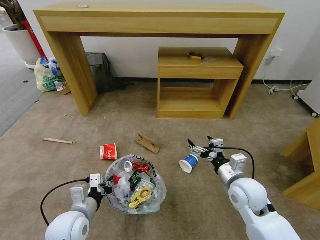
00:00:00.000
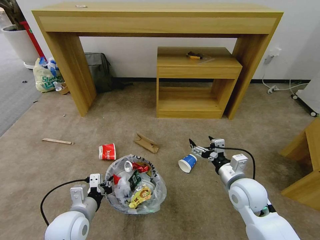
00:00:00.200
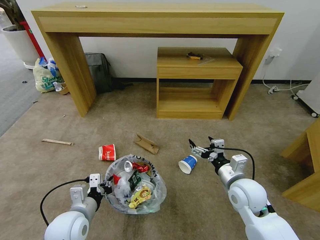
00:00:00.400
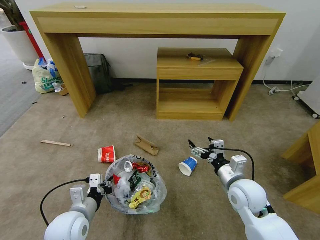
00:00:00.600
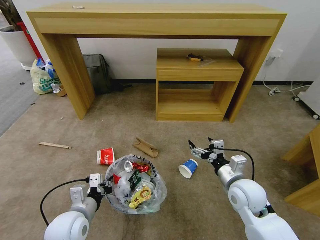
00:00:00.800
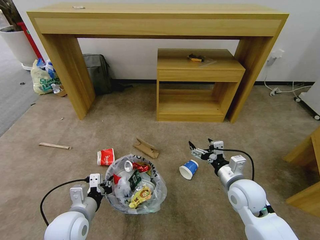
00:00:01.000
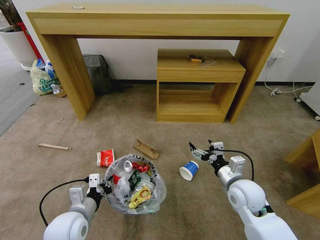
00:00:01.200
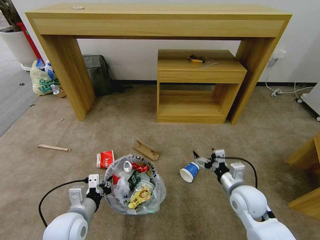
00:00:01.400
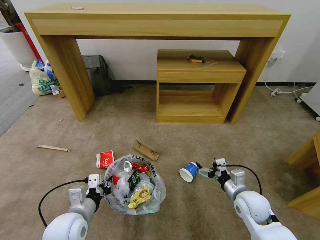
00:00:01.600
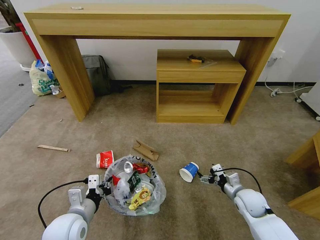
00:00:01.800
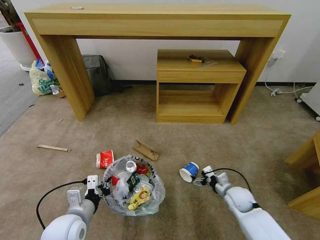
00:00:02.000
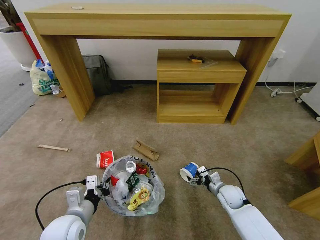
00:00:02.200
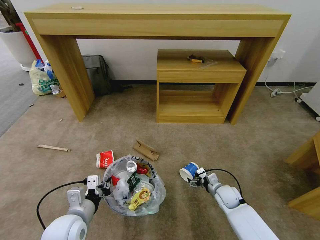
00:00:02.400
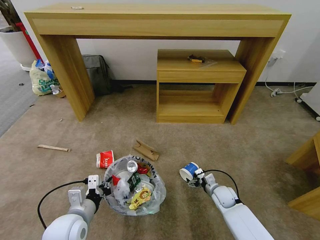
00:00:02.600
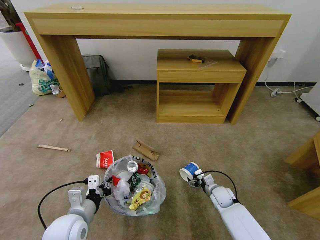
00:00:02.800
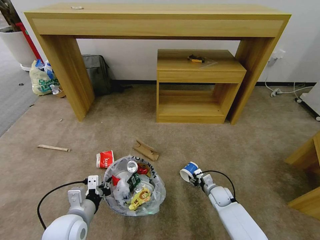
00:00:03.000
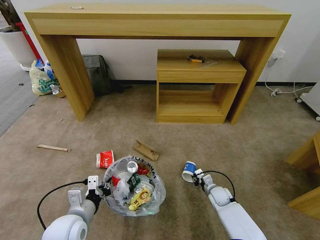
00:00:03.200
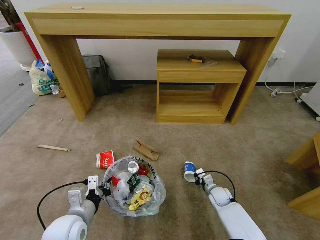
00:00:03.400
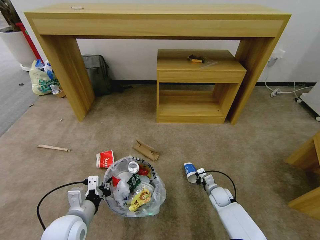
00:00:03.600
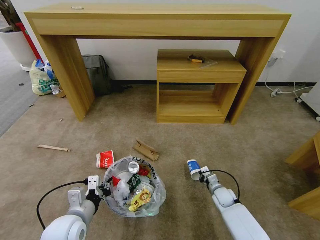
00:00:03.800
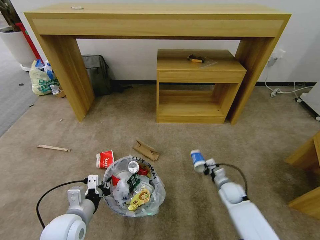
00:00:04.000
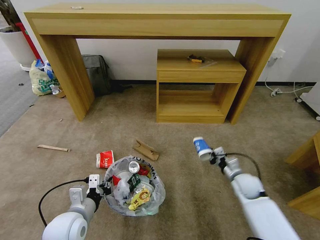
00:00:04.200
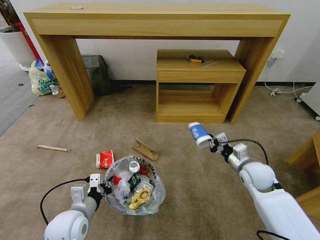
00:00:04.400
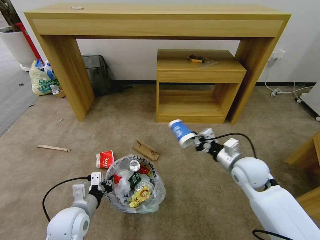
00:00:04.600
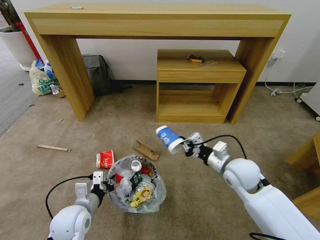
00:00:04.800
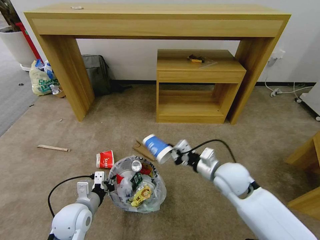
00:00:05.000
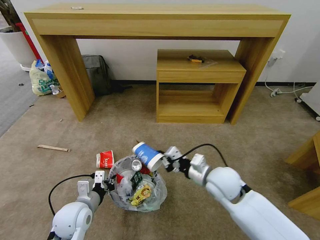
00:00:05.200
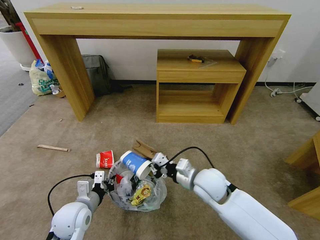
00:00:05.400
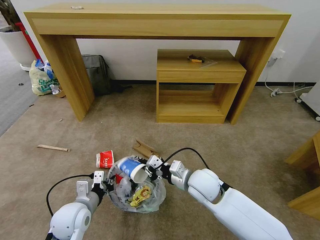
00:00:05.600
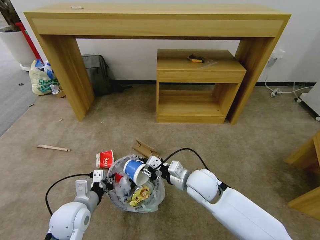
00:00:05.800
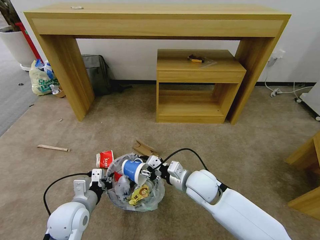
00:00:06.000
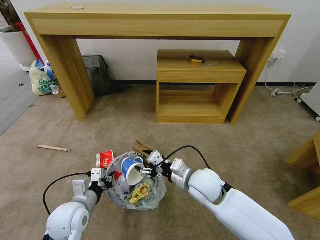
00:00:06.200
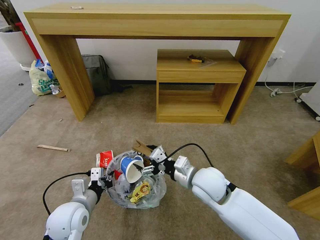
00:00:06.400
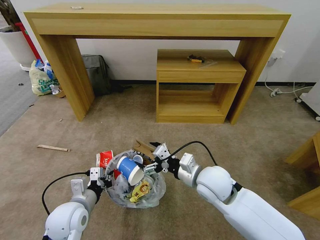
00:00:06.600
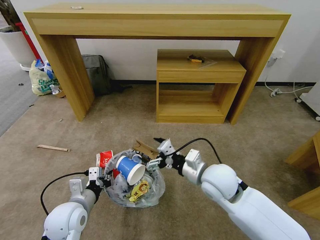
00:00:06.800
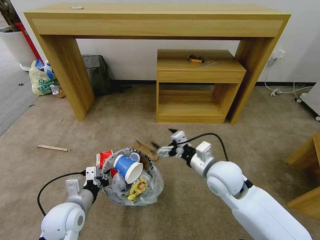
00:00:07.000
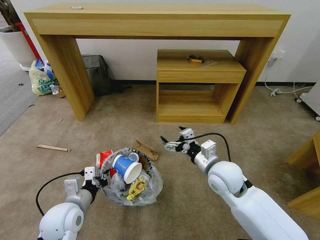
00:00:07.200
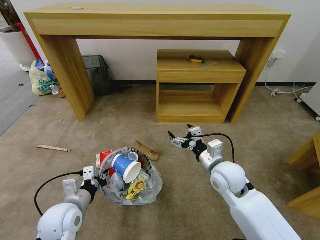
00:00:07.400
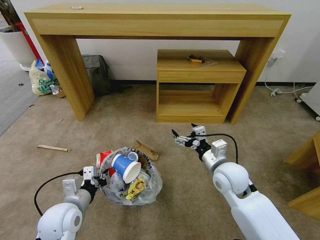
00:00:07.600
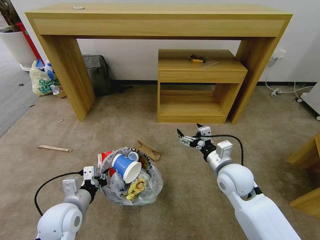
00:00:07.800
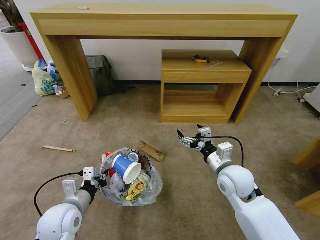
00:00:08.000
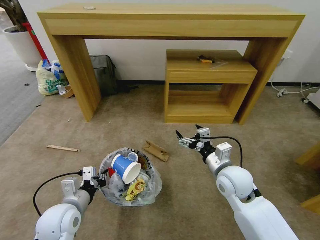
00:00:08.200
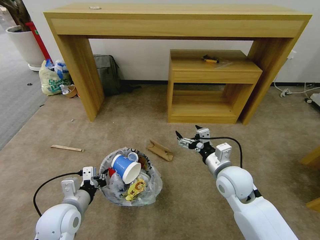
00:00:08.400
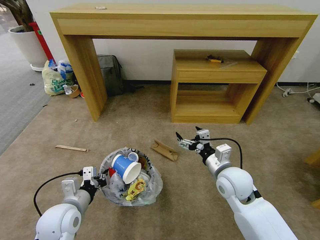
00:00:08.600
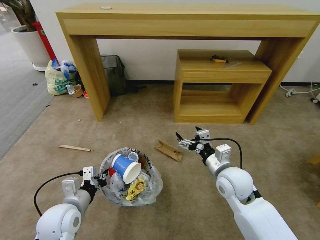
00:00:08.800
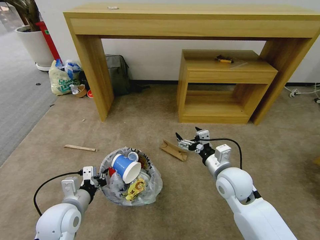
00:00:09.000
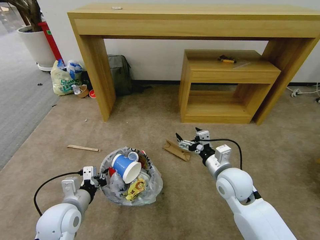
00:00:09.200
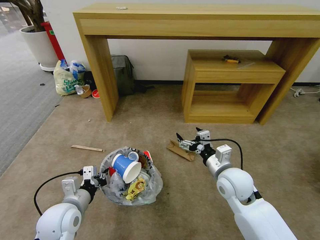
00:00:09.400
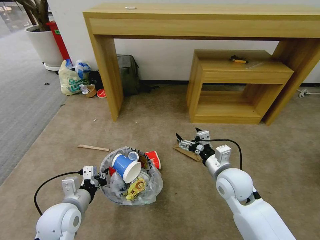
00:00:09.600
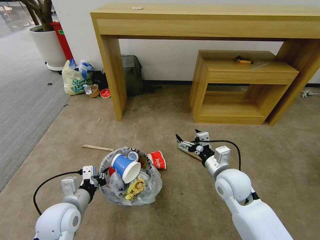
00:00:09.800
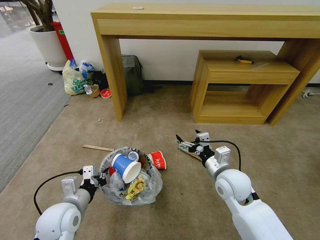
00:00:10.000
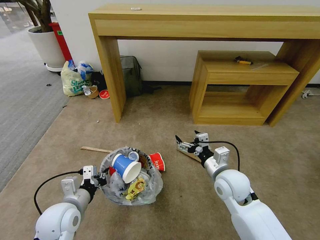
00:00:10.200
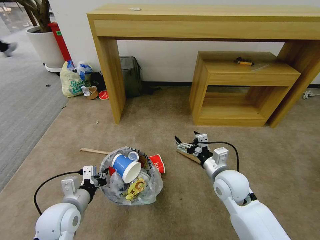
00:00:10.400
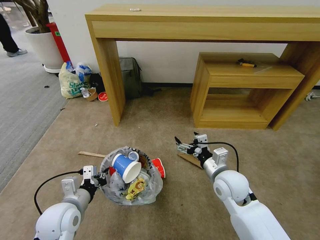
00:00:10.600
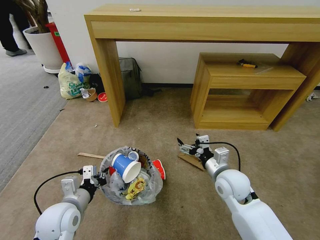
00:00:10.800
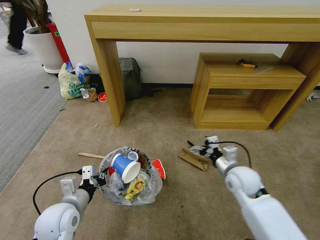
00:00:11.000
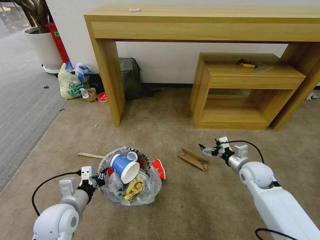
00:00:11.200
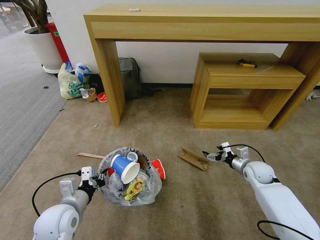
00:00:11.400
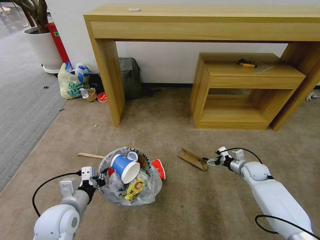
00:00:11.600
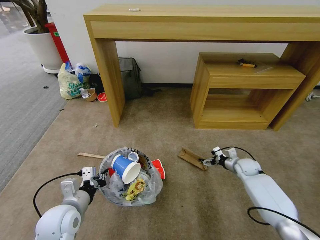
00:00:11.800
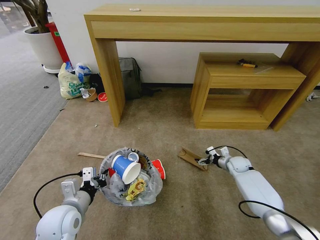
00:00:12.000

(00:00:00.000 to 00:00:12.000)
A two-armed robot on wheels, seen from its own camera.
Task of the whole recording: Pick up the trash bin and place the garbage on the floor into it.
00:00:00.000 - 00:00:01.600: The right gripper travels downward by about 5 cm.
00:00:01.600 - 00:00:03.000: The right gripper is displaced downward and forward by about 20 cm, and closes.
00:00:03.000 - 00:00:04.400: The right gripper goes approximately 20 cm upward, and closes its fingers.
00:00:04.400 - 00:00:06.000: The right gripper heads to the left, covering about 20 cm, and opens up.
00:00:06.000 - 00:00:07.600: The right gripper is displaced to the right by about 10 cm, and opens its fingers.
00:00:10.400 - 00:00:12.000: The right gripper goes some 30 cm forward, downward and to the right.

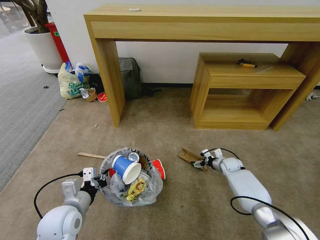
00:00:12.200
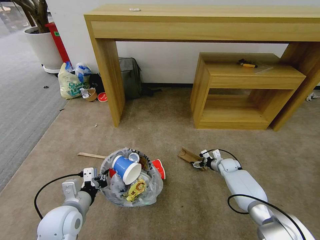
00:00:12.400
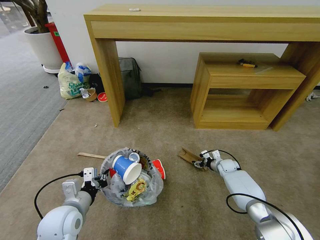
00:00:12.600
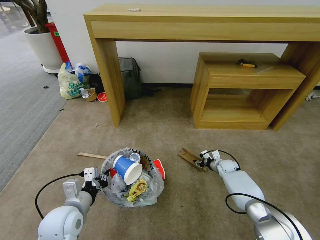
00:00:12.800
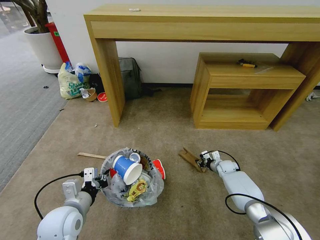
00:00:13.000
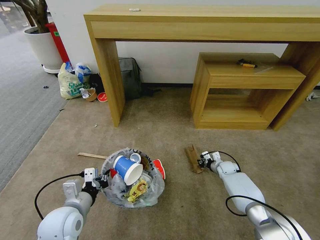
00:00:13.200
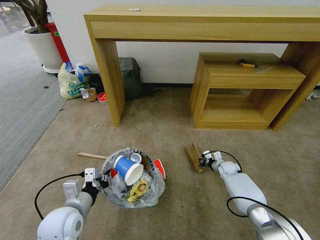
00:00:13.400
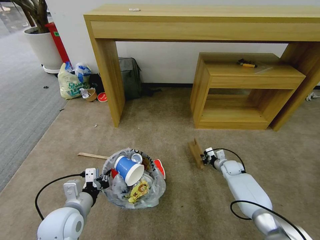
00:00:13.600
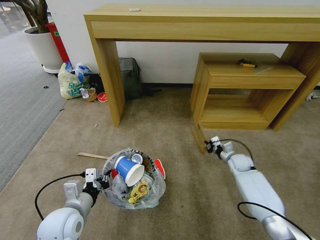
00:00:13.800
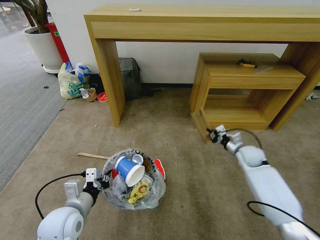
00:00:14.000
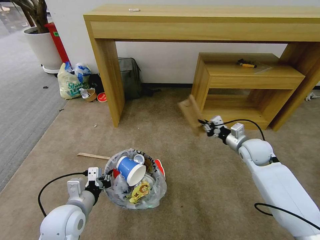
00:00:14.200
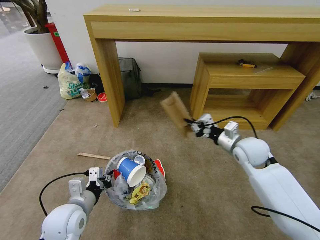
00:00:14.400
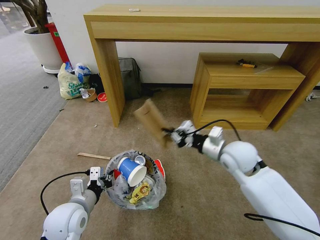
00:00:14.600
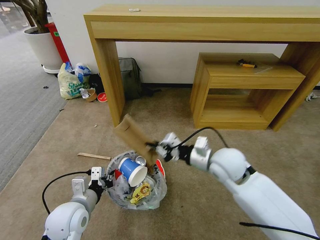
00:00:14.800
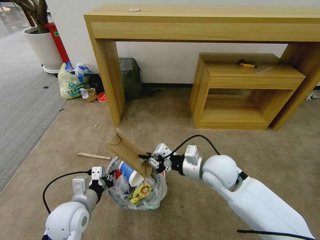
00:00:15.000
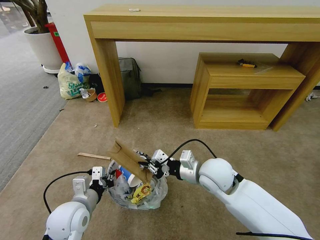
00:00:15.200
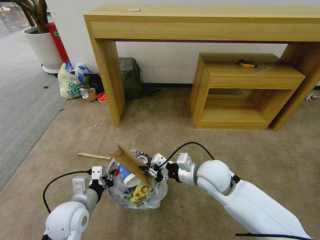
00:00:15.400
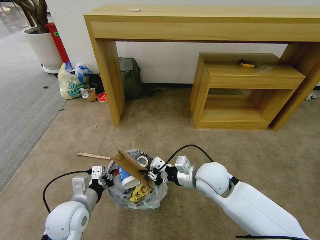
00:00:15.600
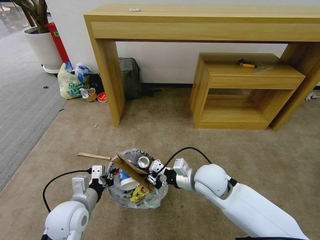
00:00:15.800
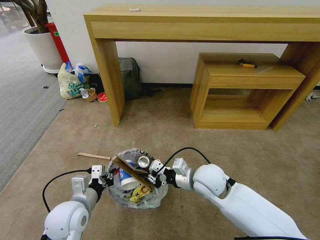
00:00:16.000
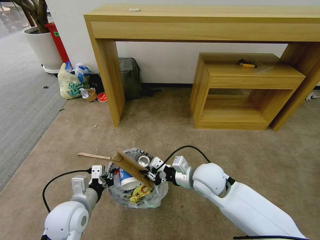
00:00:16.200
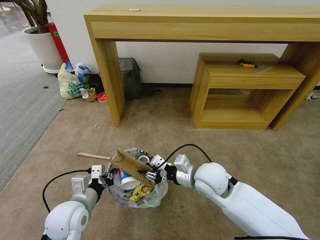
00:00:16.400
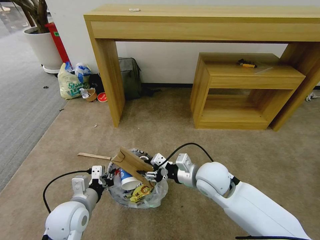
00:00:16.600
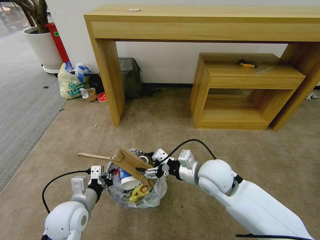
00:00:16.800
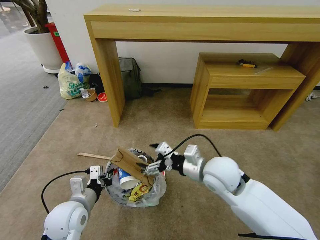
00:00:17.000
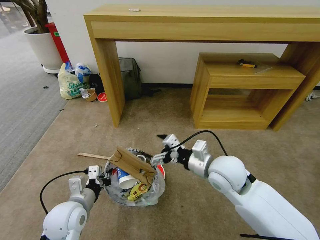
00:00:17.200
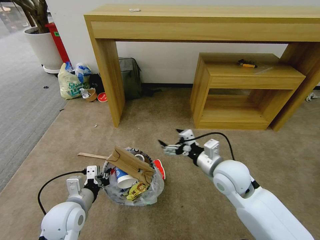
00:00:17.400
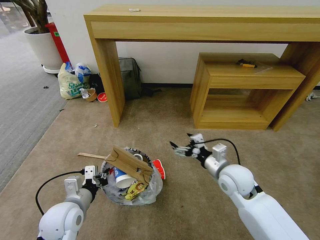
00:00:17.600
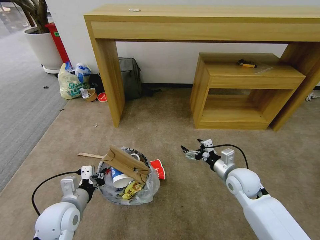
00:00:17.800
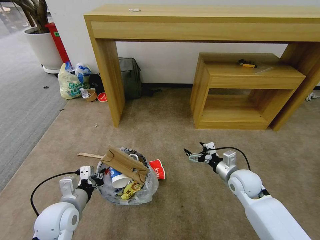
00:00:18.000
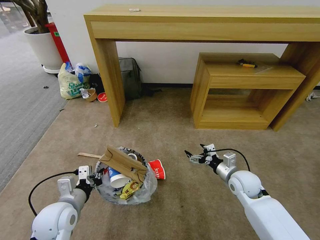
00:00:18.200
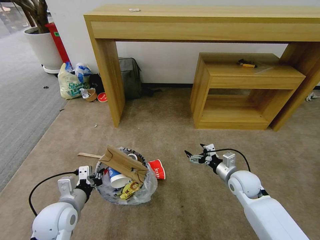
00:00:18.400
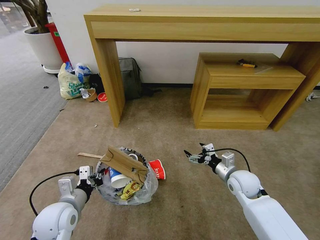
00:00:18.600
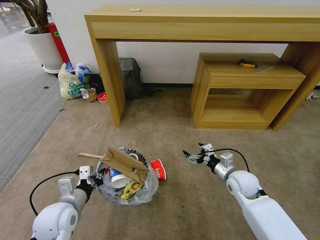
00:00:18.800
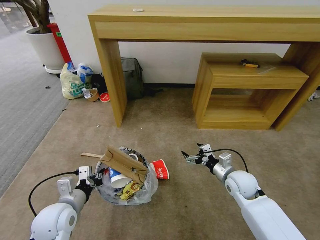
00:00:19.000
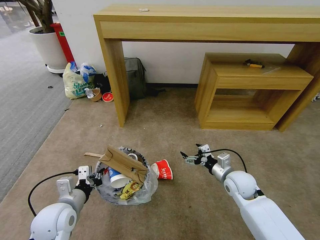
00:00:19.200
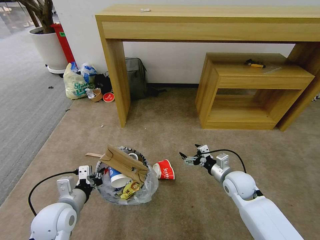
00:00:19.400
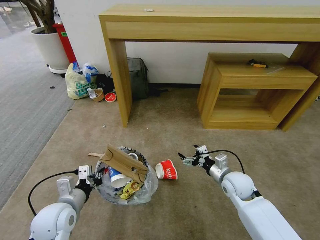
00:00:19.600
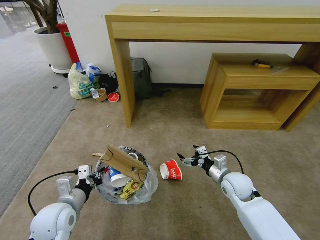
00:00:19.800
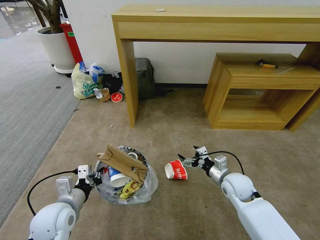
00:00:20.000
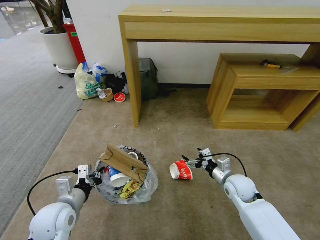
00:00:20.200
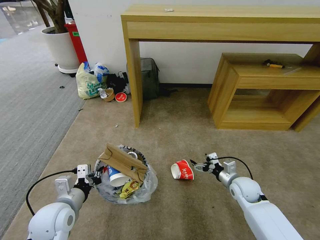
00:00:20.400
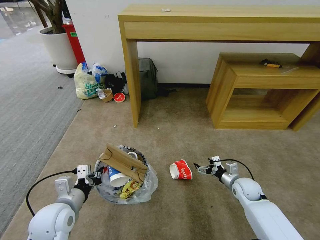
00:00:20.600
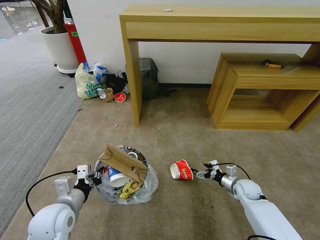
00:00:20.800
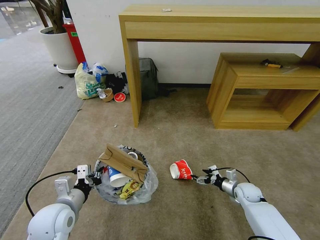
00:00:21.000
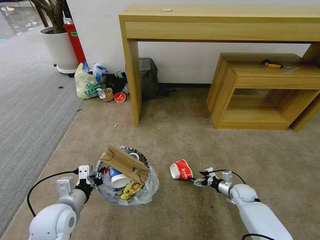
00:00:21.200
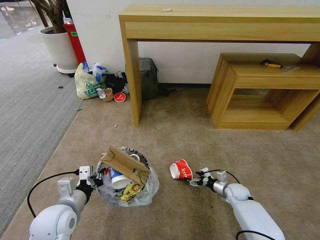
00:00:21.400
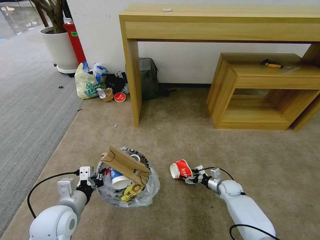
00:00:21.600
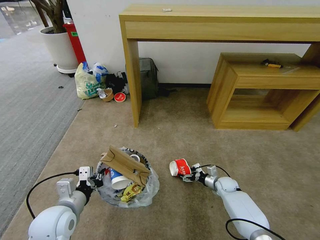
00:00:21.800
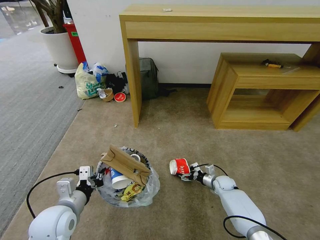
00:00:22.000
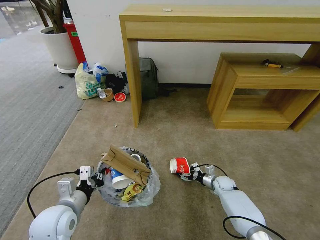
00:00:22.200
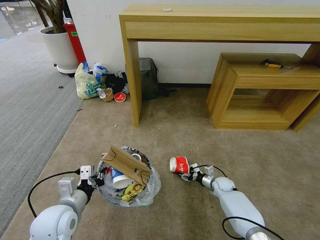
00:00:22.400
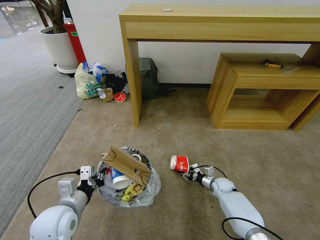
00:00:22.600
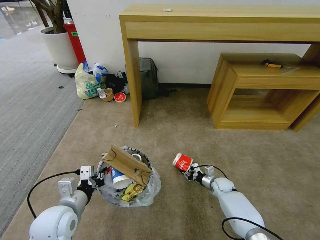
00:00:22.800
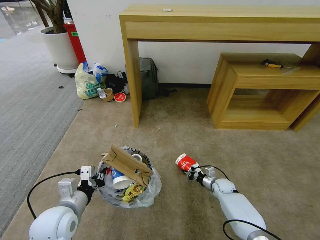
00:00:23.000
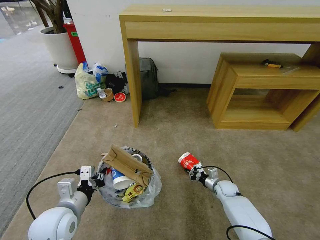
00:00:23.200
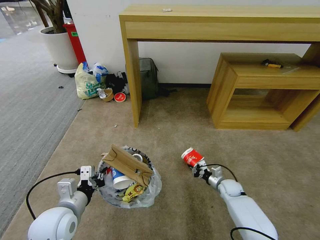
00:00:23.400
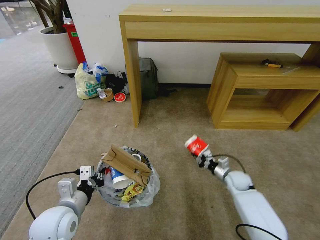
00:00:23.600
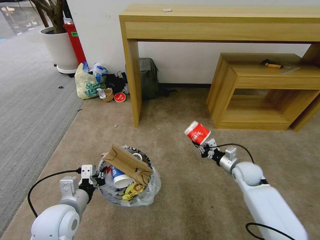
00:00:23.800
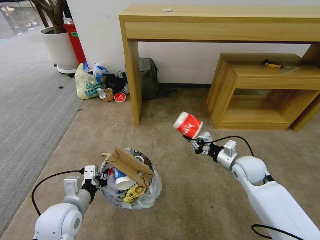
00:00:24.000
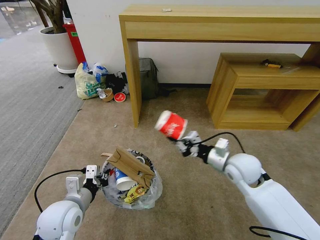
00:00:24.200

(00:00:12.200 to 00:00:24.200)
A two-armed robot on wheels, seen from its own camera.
Task of the whole recording: Pick up the trash bin and place the garbage on the floor into it.
00:00:12.200 - 00:00:13.800: The right gripper shifts by approximately 5 cm, and closes.
00:00:13.800 - 00:00:15.200: The right gripper travels to the left, upward and backward by approximately 30 cm.
00:00:15.200 - 00:00:16.600: The right gripper opens its fingers.
00:00:16.600 - 00:00:18.200: The right gripper travels to the right and downward by some 20 cm, and opens up.
00:00:18.200 - 00:00:19.800: The grippers move only a little.
00:00:19.800 - 00:00:21.200: The right gripper goes about 20 cm downward and to the right.
00:00:21.200 - 00:00:22.600: The right gripper travels to the left by approximately 5 cm, and closes up.
00:00:22.600 - 00:00:24.200: The right gripper is displaced upward by some 30 cm, and closes its fingers.
